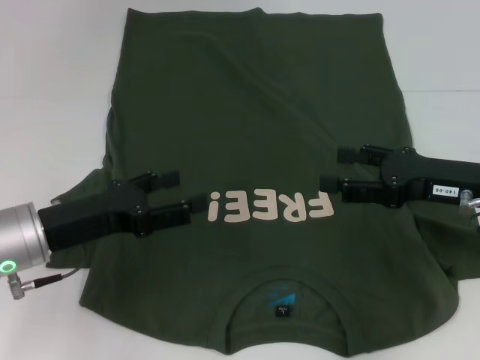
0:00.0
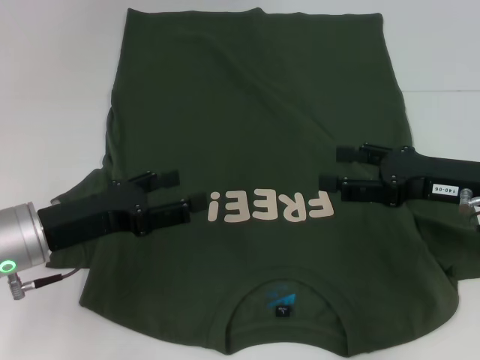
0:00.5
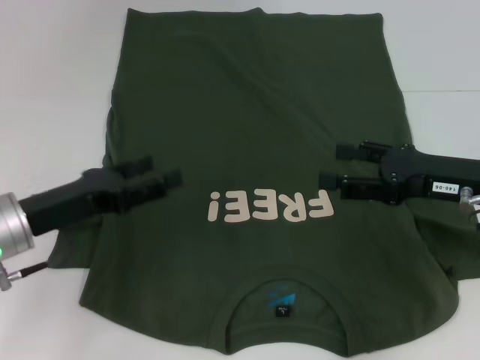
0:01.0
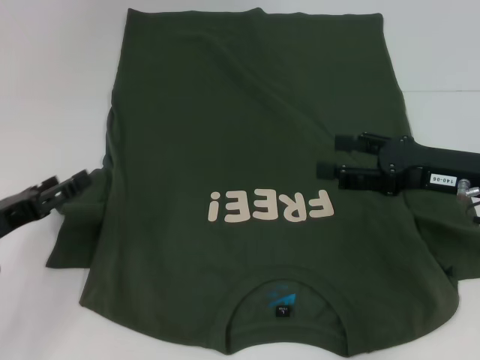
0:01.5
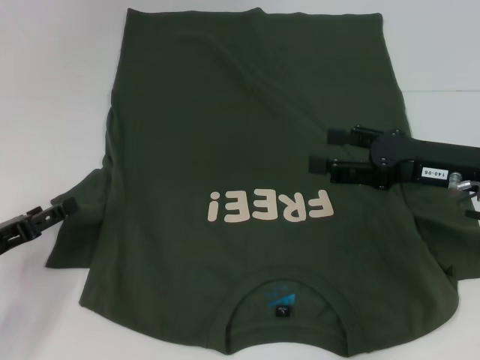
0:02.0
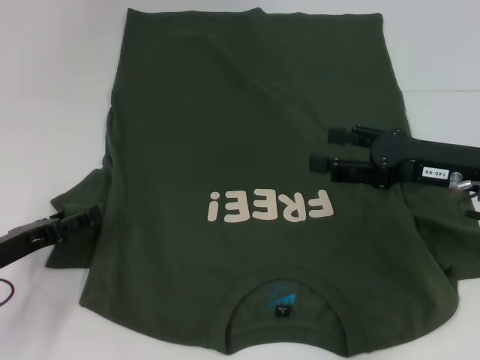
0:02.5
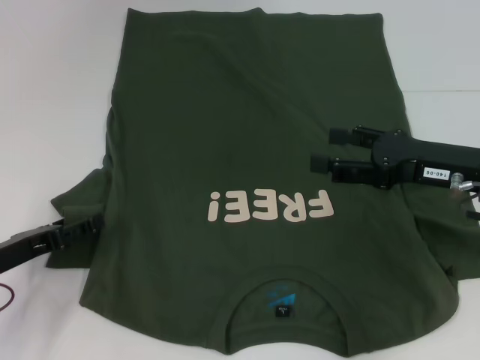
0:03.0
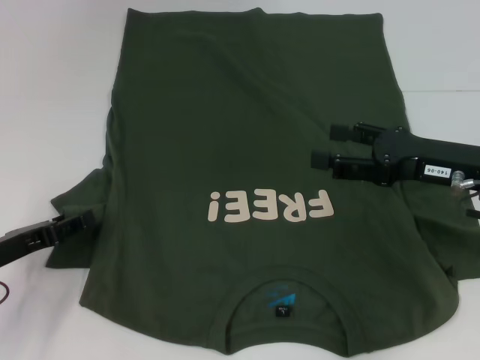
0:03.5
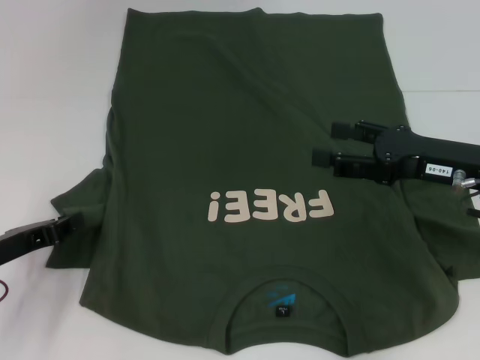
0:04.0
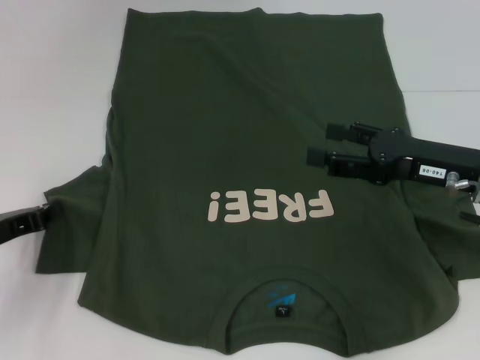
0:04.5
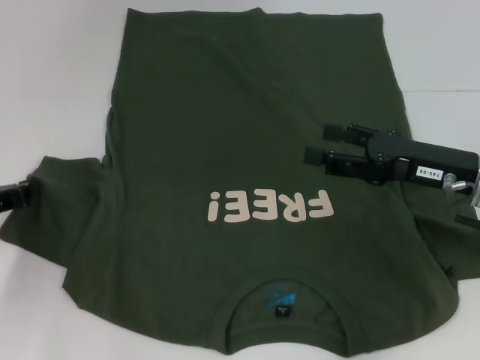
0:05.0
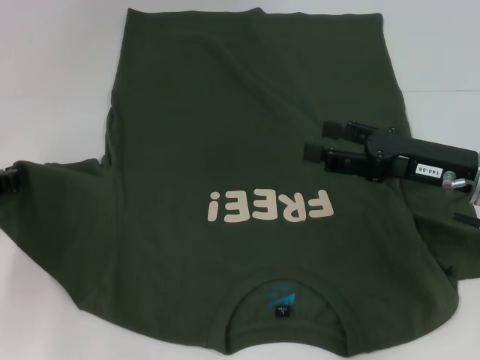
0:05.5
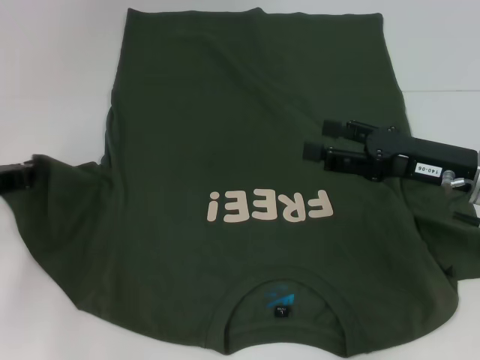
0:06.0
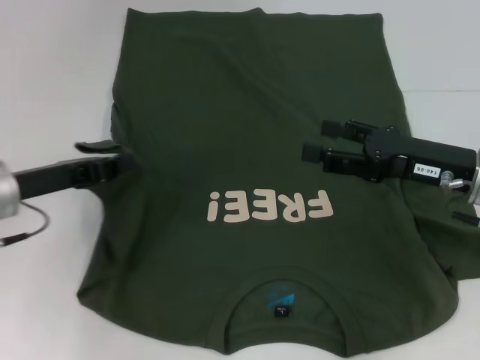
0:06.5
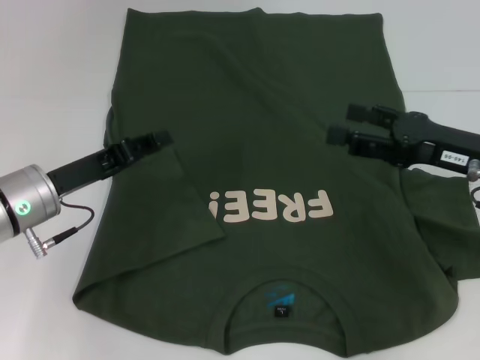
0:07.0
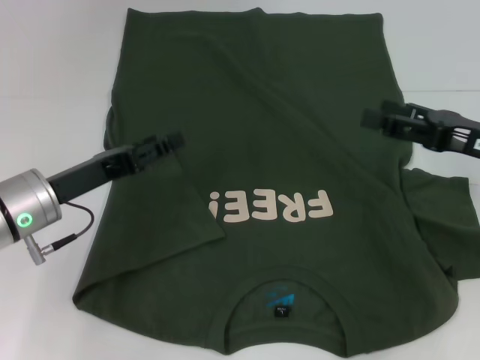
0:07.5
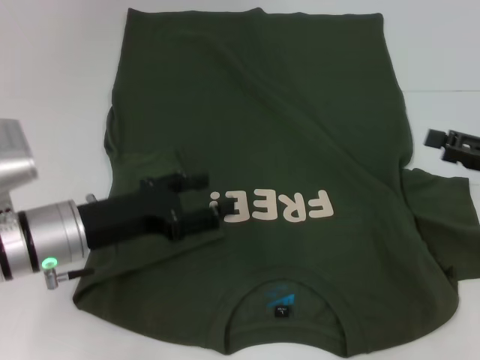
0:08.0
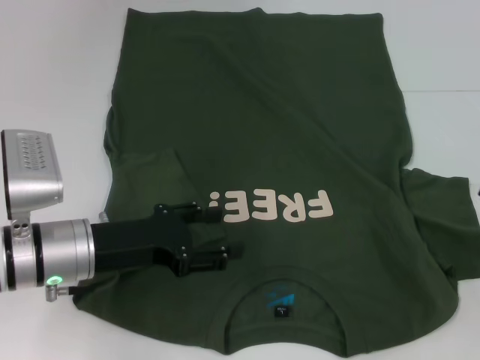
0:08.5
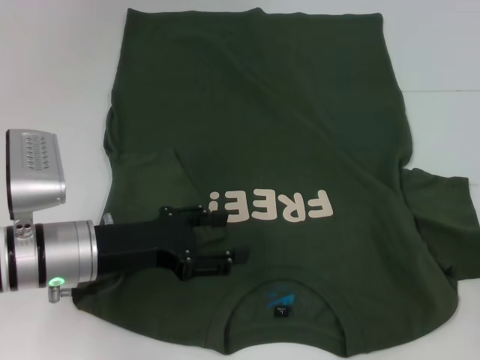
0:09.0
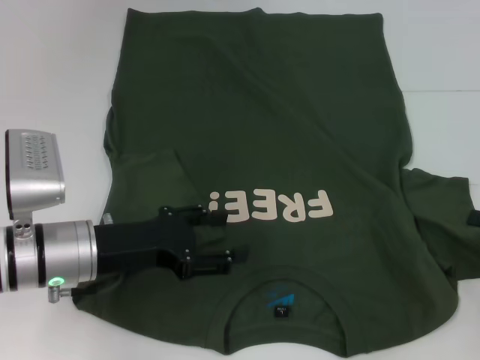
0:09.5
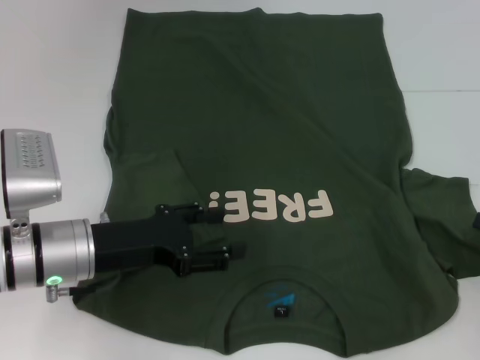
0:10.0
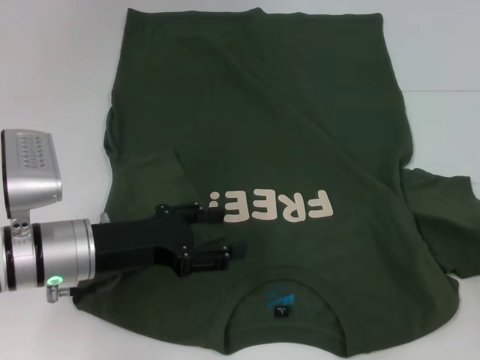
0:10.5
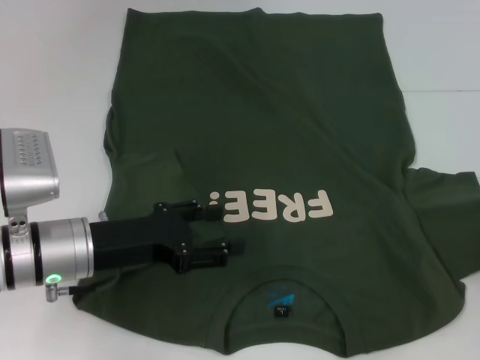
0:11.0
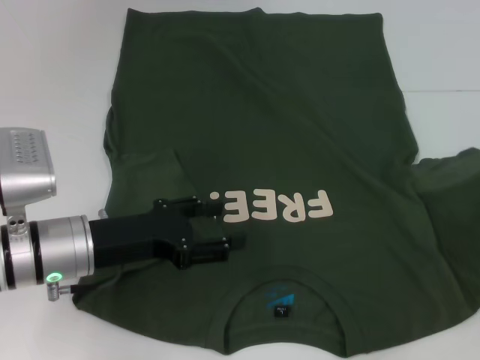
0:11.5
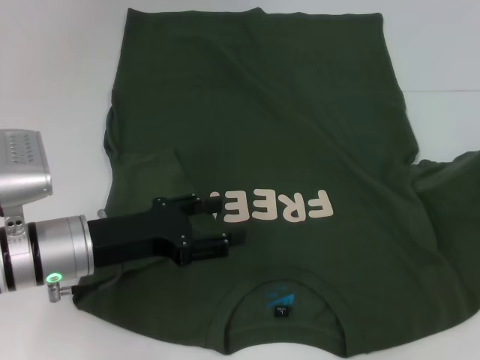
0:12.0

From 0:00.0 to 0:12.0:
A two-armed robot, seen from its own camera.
Step, from 0:00.0 to 0:06.5: Fold the bottom left sleeve with your left hand.
From 0:00.0 to 0:02.0: The left gripper travels to the left by approximately 10 cm.
From 0:02.0 to 0:04.0: The left gripper closes up.
From 0:04.0 to 0:06.0: The left gripper changes place by roughly 5 cm, and closes its fingers.
From 0:06.0 to 0:08.0: The grippers both shift to the right by some 10 cm. The left gripper opens up.
From 0:08.0 to 0:10.0: The right gripper shifts roughly 5 cm backward and downward.
From 0:10.0 to 0:12.0: The right gripper travels forward and upward by roughly 10 cm, and closes up.

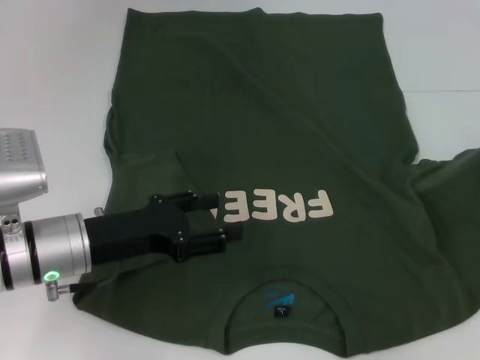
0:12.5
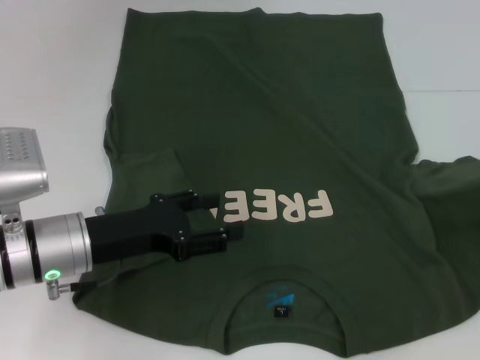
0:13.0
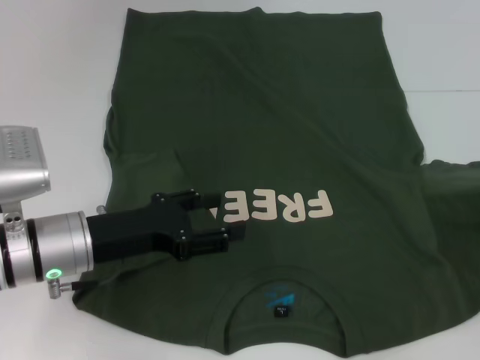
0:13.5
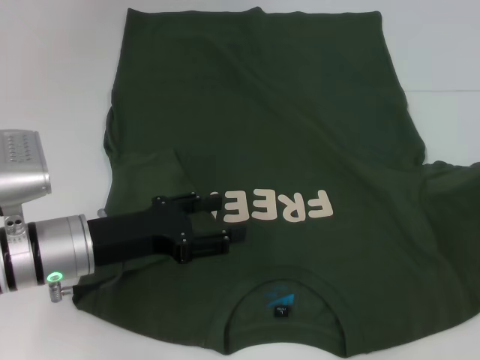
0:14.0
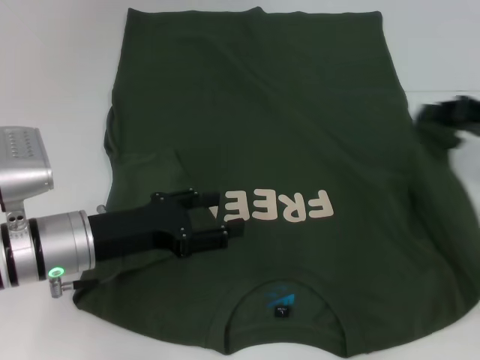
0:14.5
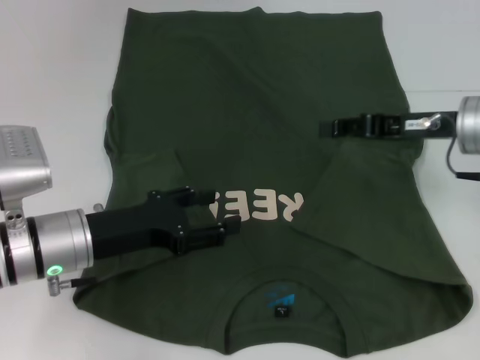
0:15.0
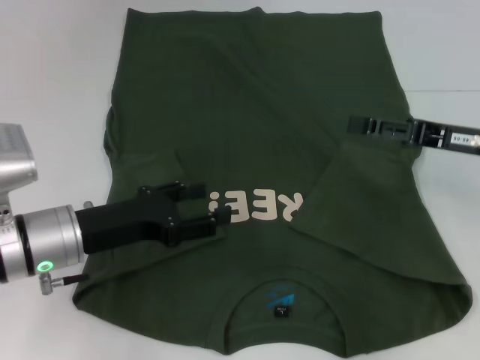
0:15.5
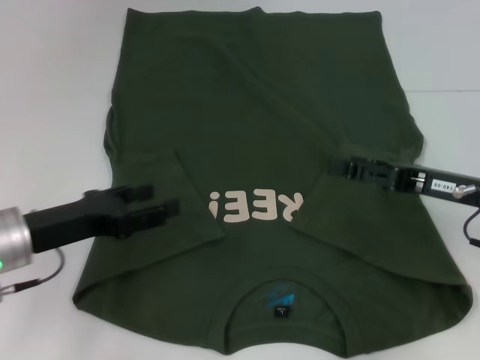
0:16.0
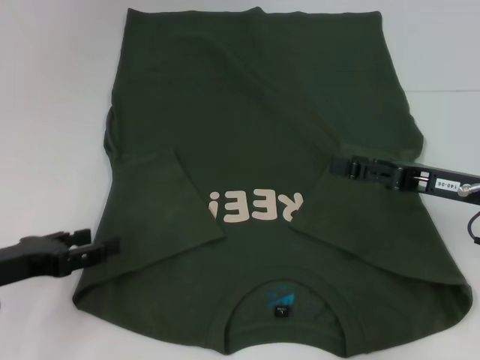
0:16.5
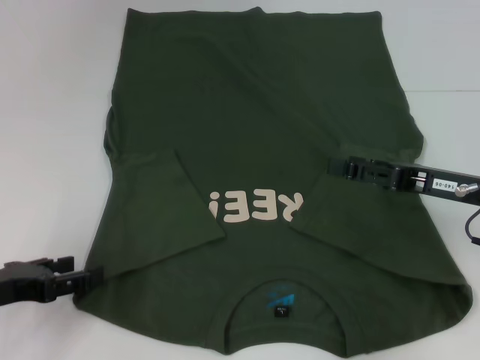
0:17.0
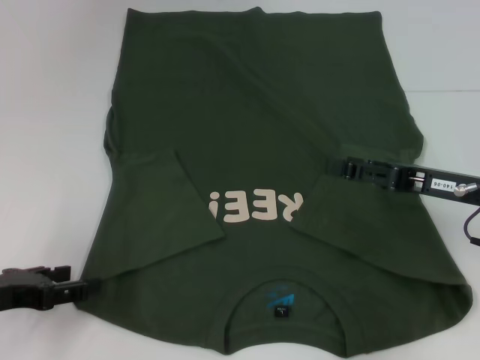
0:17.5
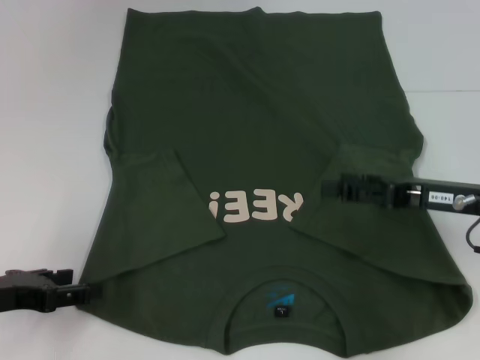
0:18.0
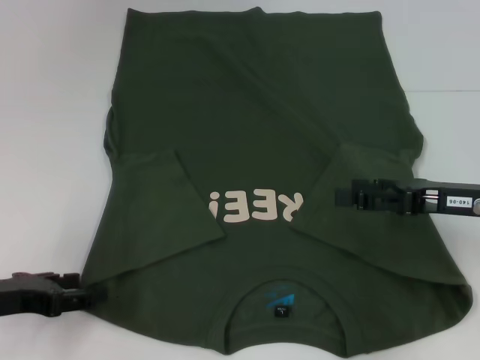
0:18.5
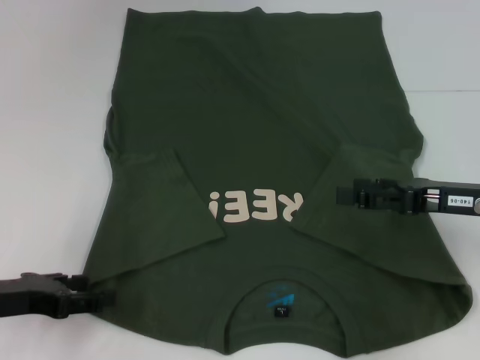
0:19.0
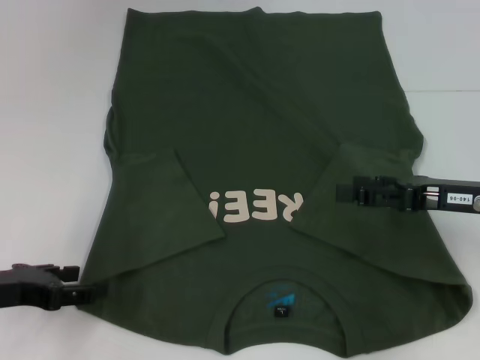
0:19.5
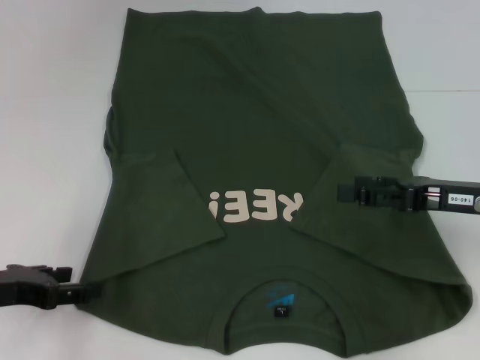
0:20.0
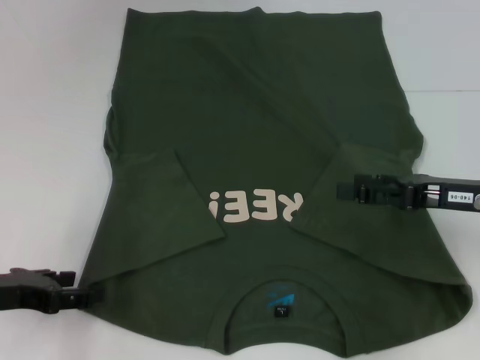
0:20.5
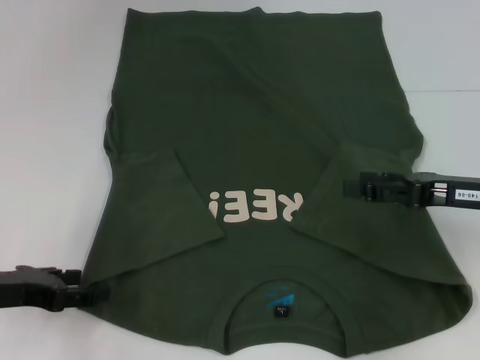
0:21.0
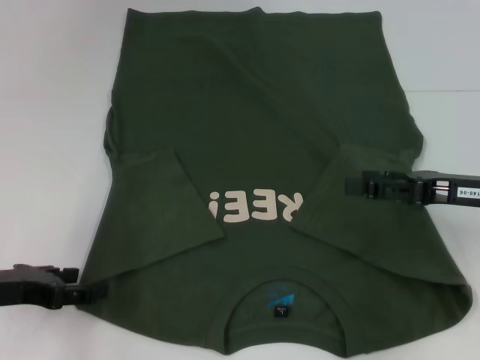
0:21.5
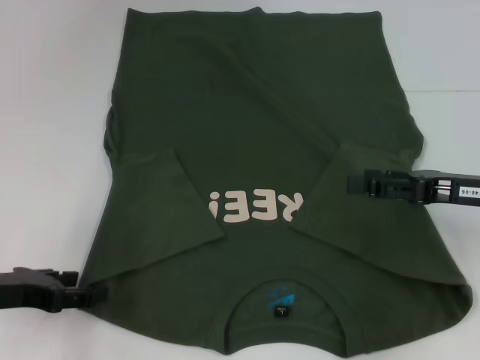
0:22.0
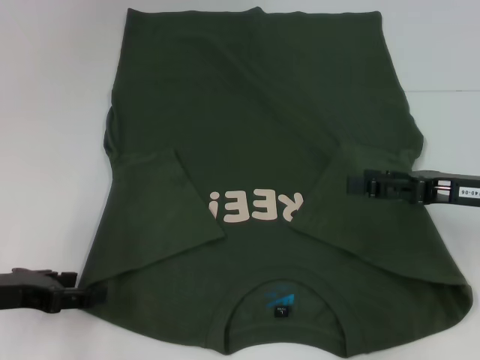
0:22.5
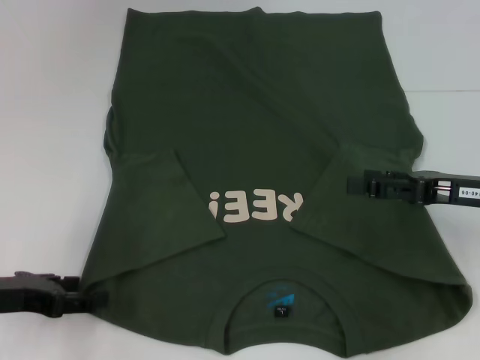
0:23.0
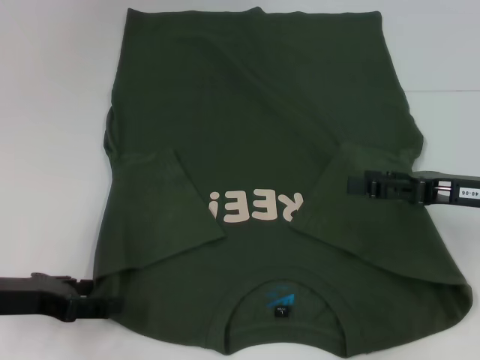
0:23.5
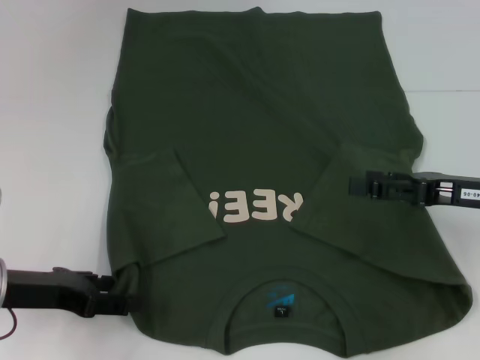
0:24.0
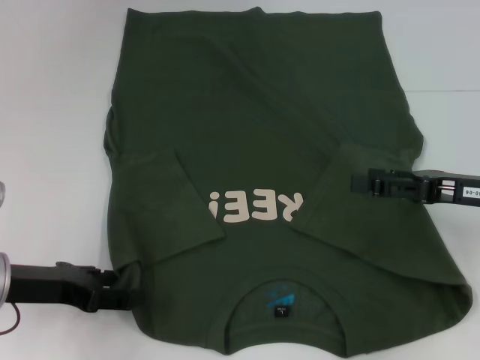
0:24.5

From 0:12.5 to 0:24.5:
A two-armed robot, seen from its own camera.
Step, from 0:12.5 to 0:14.5: Fold the bottom right sleeve with your right hand.
From 0:12.5 to 0:14.5: The right gripper heads to the left, covering roughly 10 cm.
From 0:14.5 to 0:16.5: The right gripper shifts roughly 10 cm to the left and backward, and opens its fingers; the left gripper shifts about 10 cm to the left.
From 0:16.5 to 0:18.5: The grippers make only small movements.
From 0:18.5 to 0:20.5: The two grippers keep their place.
From 0:20.5 to 0:22.5: Both grippers stay put.
From 0:22.5 to 0:24.5: The grippers stay close to where they were, moving slightly.

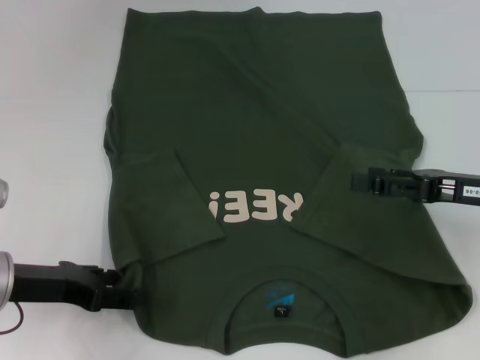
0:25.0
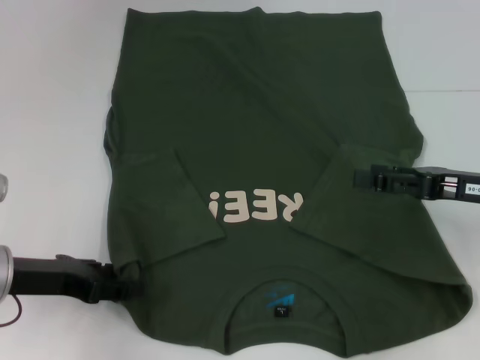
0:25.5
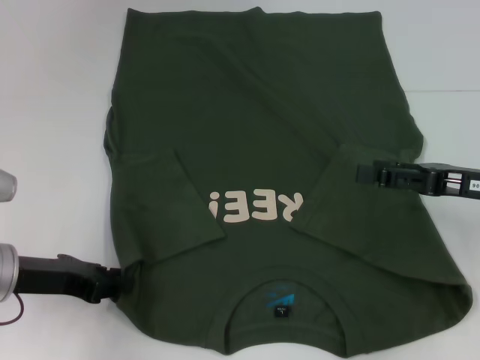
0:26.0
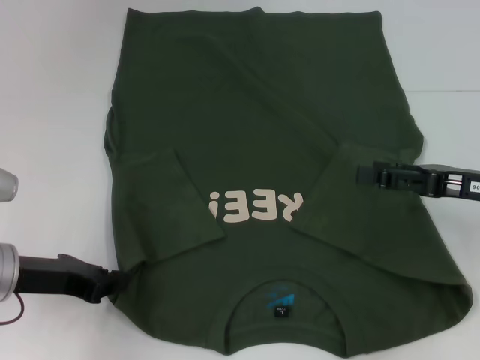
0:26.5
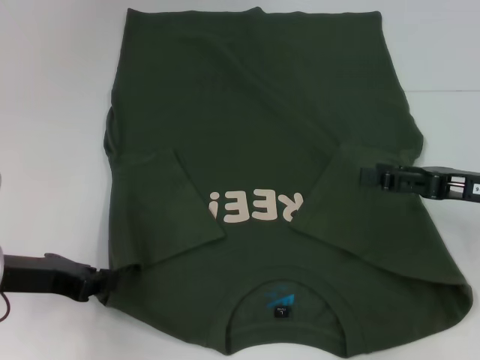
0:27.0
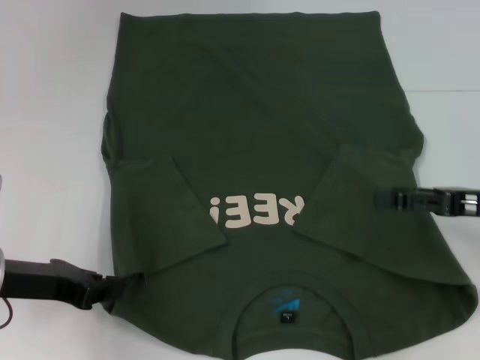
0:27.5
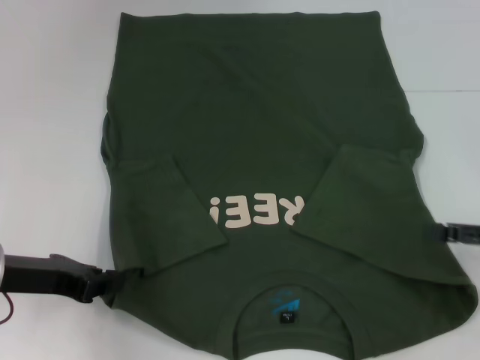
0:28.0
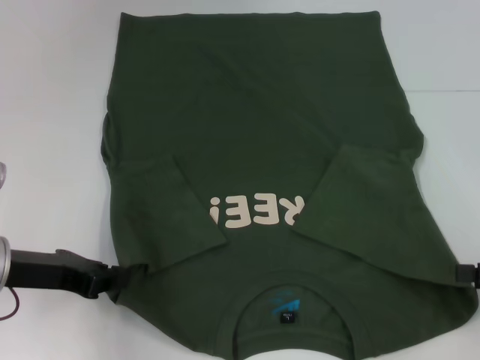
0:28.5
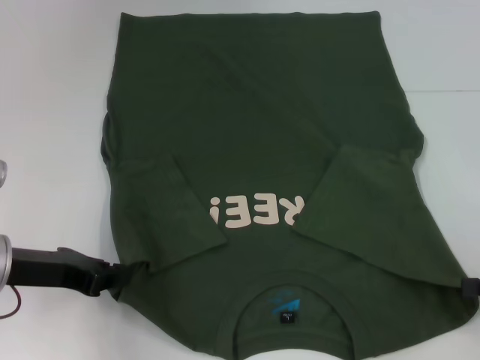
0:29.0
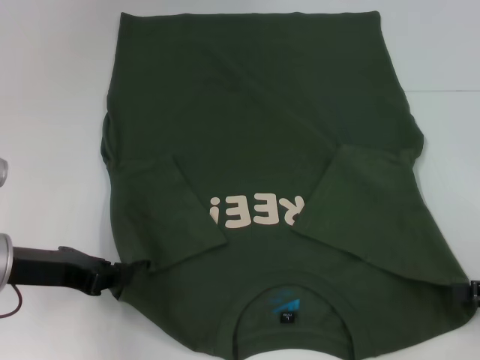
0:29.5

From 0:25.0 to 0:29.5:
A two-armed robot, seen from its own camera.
From 0:25.0 to 0:27.0: The left gripper closes its fingers.
From 0:27.0 to 0:29.5: The right gripper moves to the right and backward, some 10 cm.
